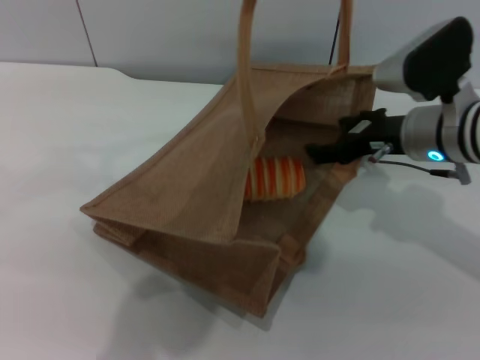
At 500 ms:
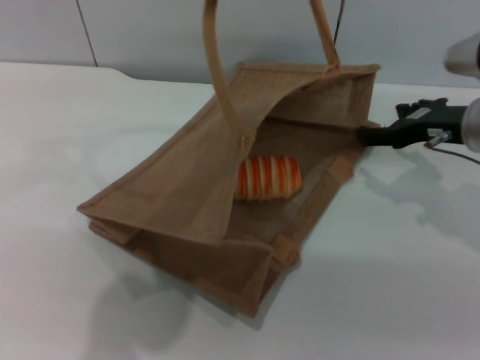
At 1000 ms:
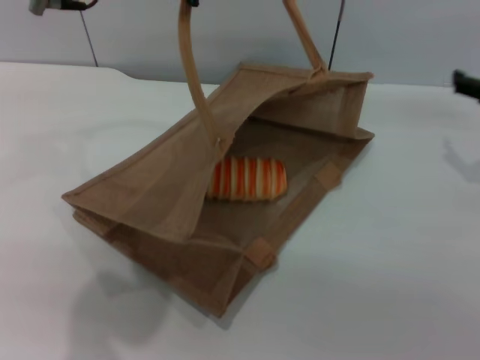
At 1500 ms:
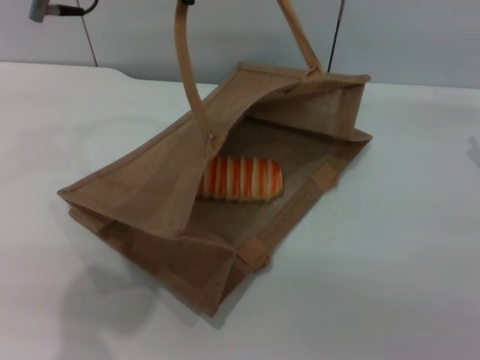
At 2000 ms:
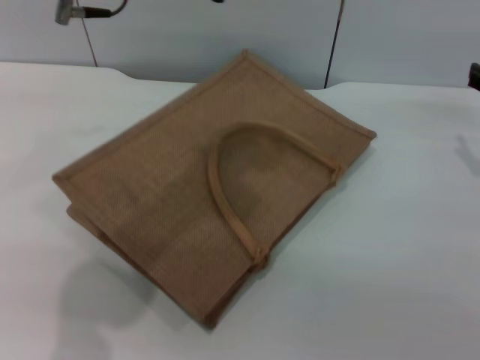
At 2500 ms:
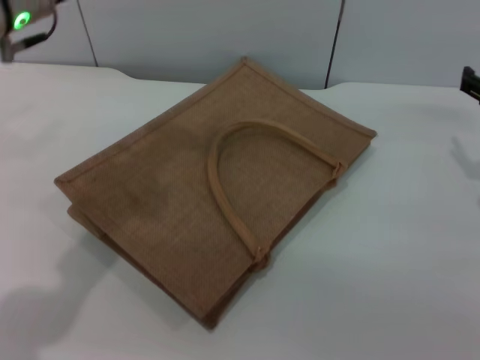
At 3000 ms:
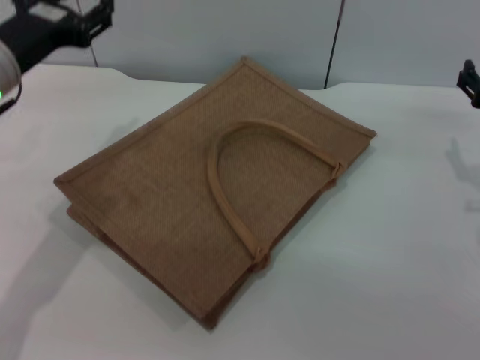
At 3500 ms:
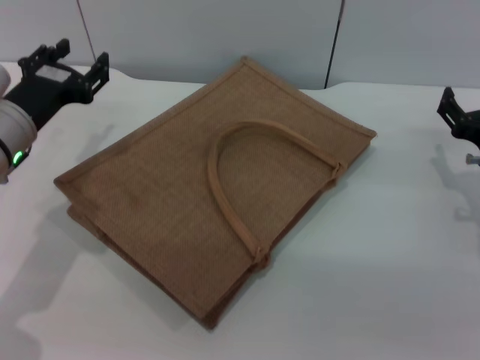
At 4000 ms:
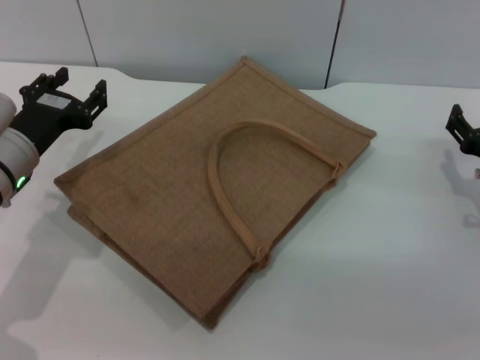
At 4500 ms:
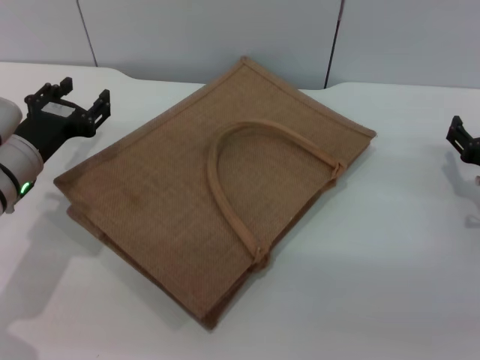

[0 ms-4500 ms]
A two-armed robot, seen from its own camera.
Task of the whole recording: pick up the bread from the table and place it in the brown handbag.
Step, 500 ms to 1500 ms: Lower the woven bag with the left gripper to close it.
0 ms to 2000 ms: The right gripper is displaced to the right by some 15 cm; the left gripper heads to the left, covering some 5 cm.
2000 ms to 4500 ms: The right gripper goes about 10 cm downward. Meanwhile the left gripper moves downward and to the left, approximately 25 cm, and opens its fingers.
